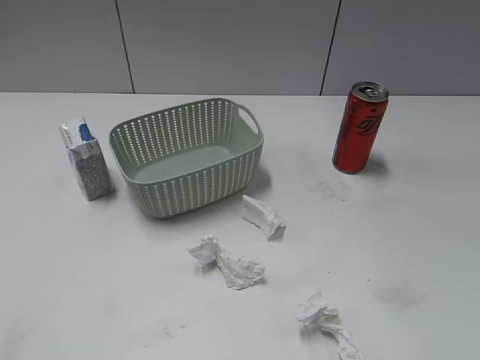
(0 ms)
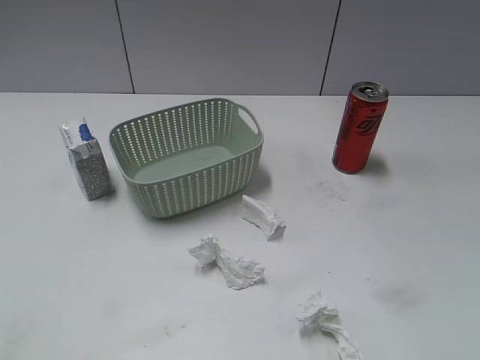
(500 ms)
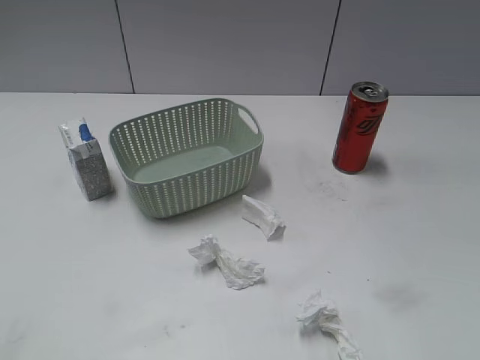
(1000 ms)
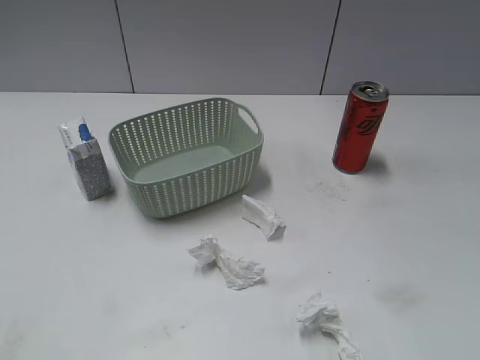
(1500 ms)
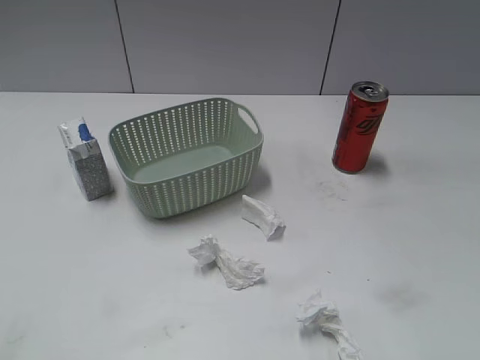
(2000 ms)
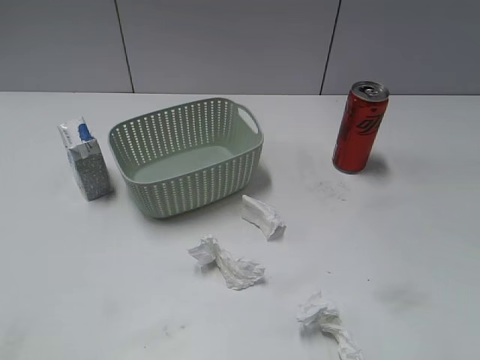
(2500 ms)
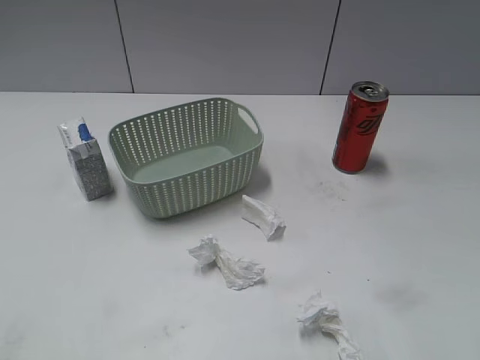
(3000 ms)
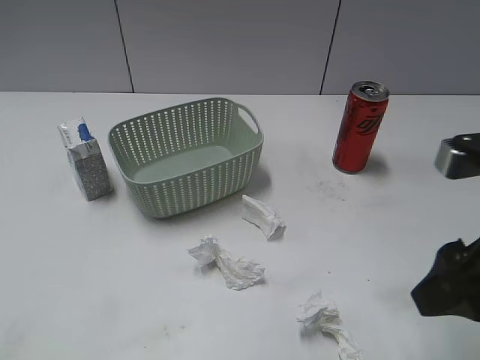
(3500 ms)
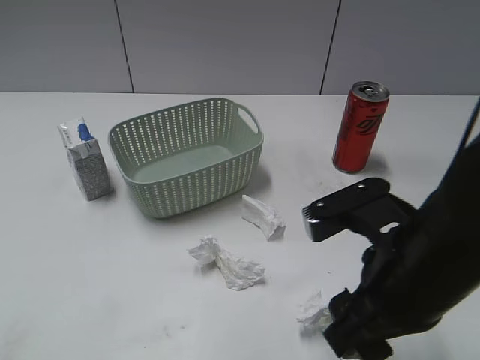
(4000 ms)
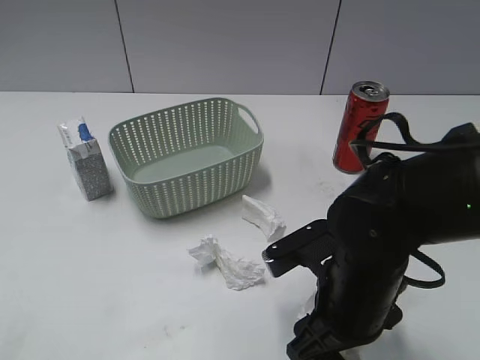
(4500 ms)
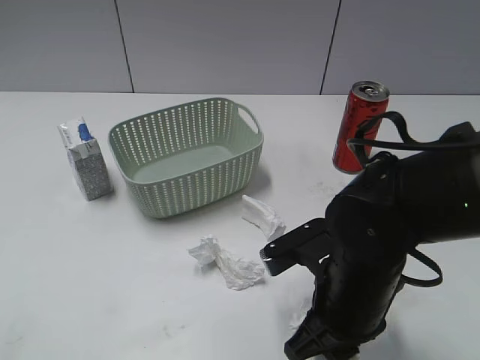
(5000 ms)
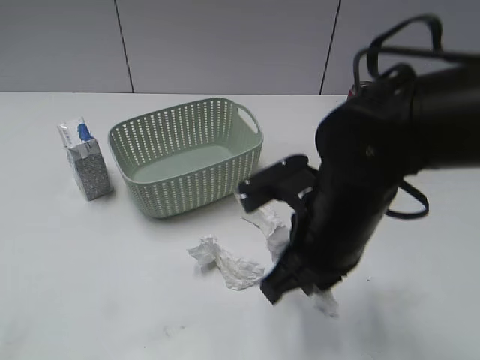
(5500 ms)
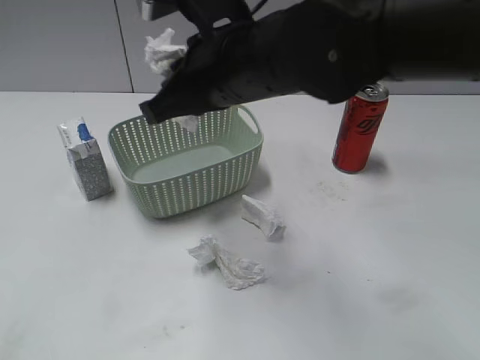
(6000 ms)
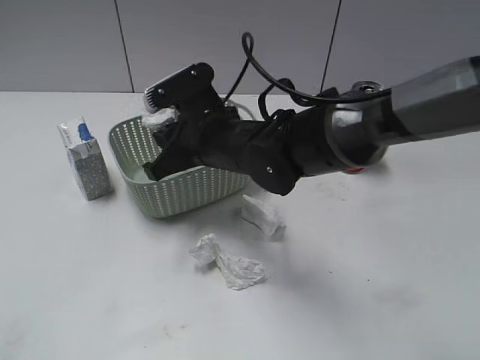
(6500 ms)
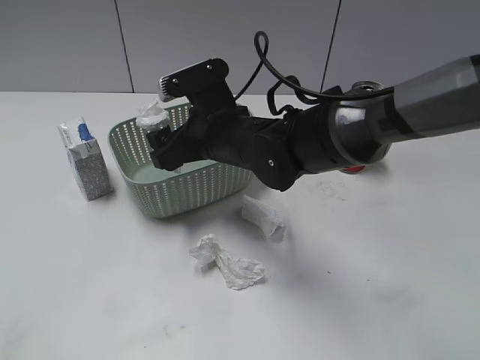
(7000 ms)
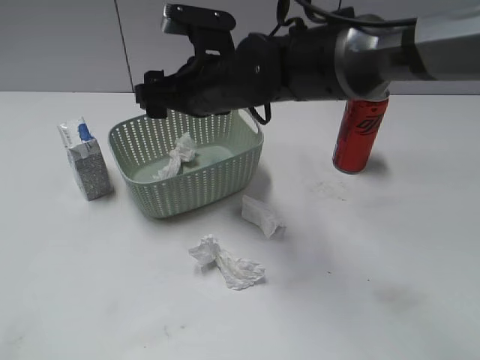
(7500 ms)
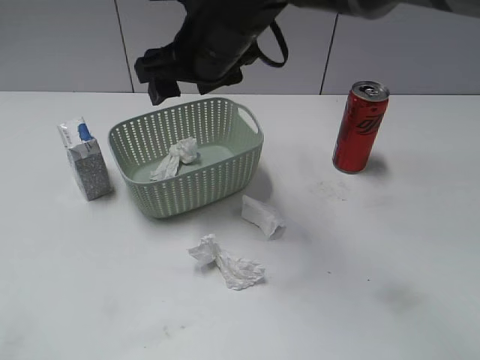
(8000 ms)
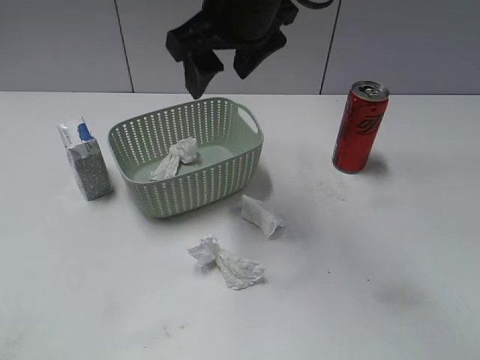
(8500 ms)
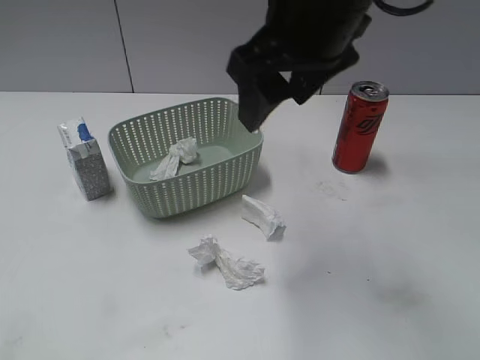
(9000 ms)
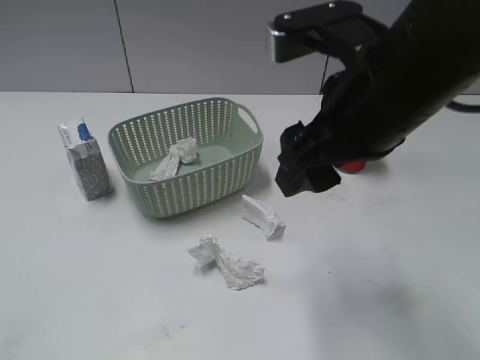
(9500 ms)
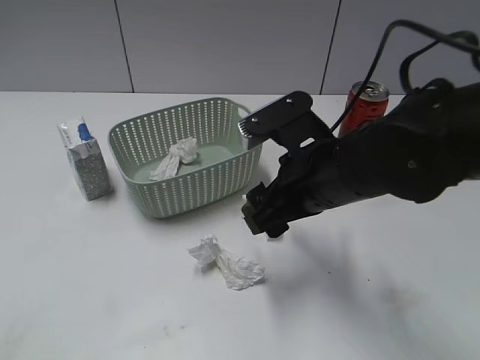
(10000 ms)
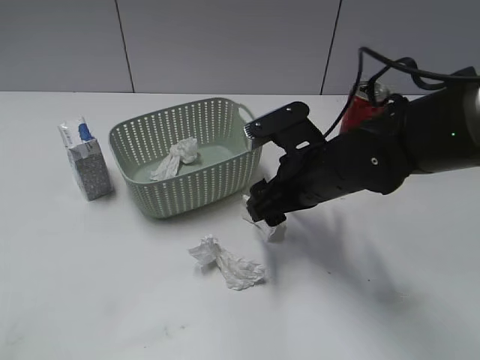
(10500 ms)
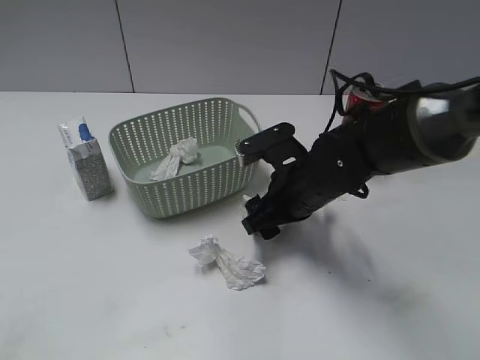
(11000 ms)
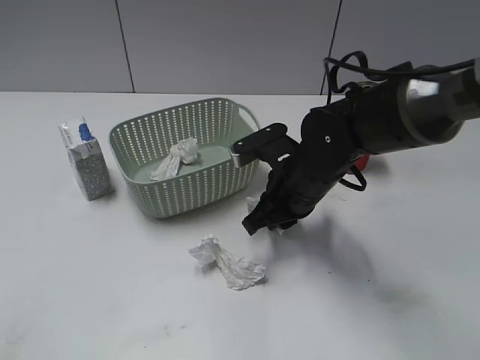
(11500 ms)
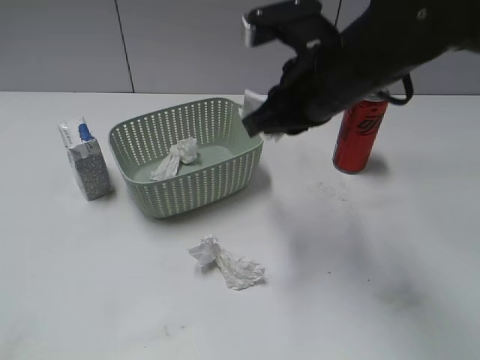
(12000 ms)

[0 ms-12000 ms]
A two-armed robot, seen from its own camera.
Step, 3500 ms to 5000 ms: Grasp the waste paper with right gripper.
Step, 5500 ms to 7500 ms: Place the waste paper in the basket with right gripper.
Step, 8000 ms to 11500 ms: Grasp the waste paper with right gripper.
2000 ms to 4000 ms: The right gripper heads to the left, forward and downward, covering some 20 cm.
4000 ms to 6000 ms: The right gripper moves to the left, forward and upward, approximately 20 cm, and closes up.
6000 ms to 8000 ms: The right gripper is displaced forward by about 10 cm, travels downward and back again, approximately 10 cm each way, and opens.
8000 ms to 10000 ms: The right gripper moves to the right, backward and downward, about 20 cm.
10000 ms to 12000 ms: The right gripper goes approximately 5 cm upward, and closes.

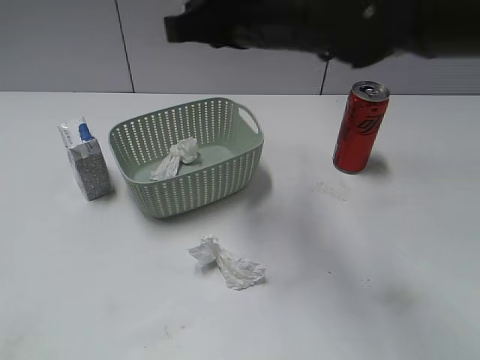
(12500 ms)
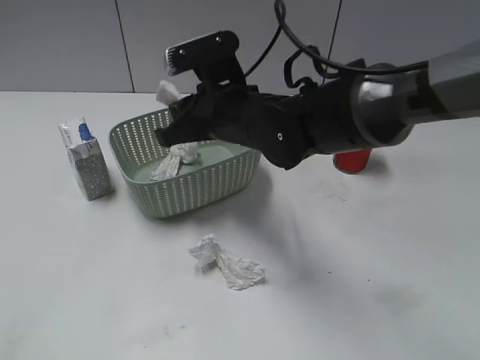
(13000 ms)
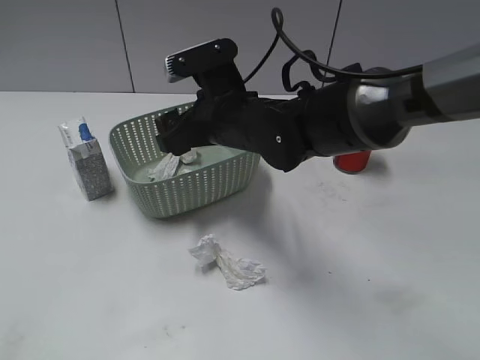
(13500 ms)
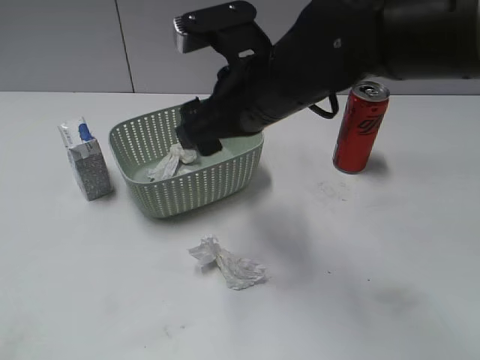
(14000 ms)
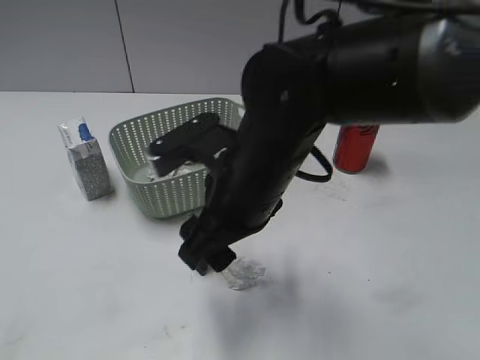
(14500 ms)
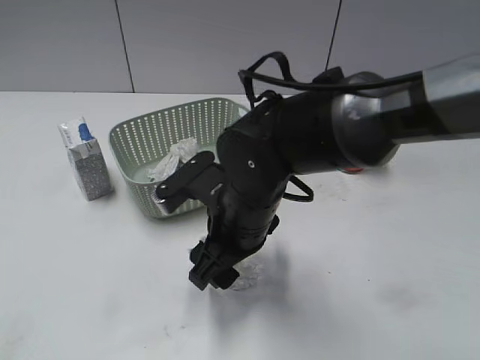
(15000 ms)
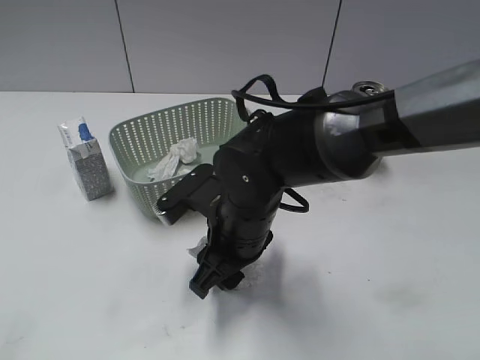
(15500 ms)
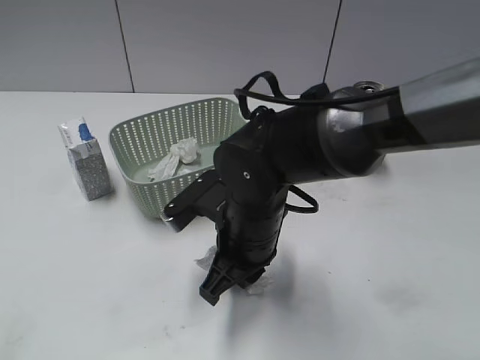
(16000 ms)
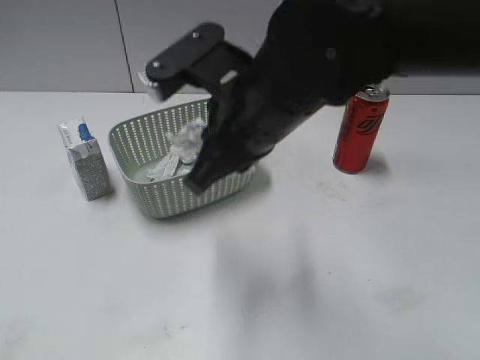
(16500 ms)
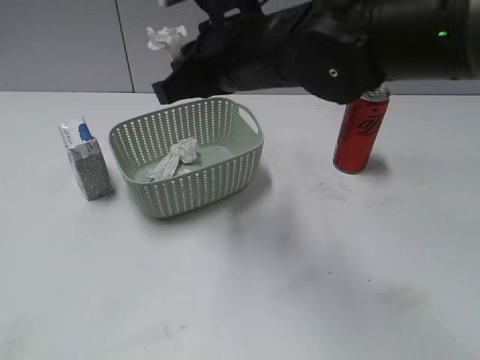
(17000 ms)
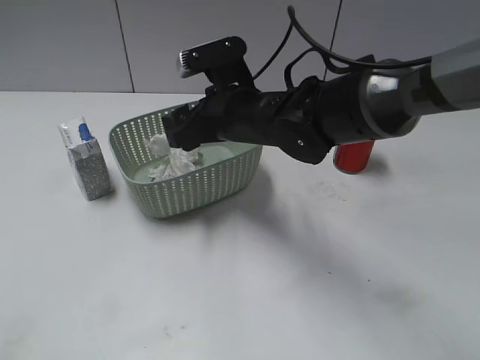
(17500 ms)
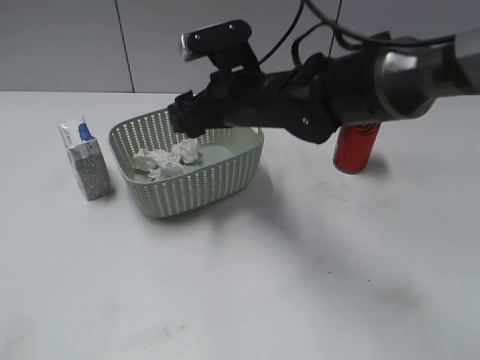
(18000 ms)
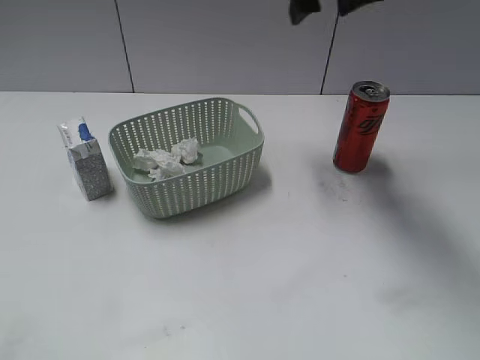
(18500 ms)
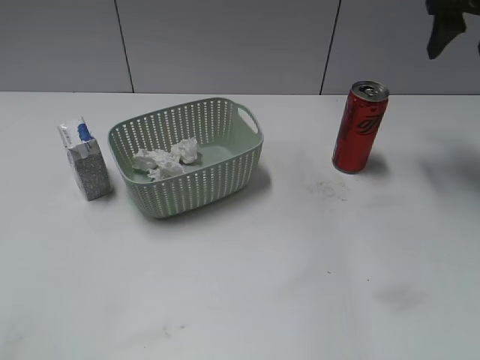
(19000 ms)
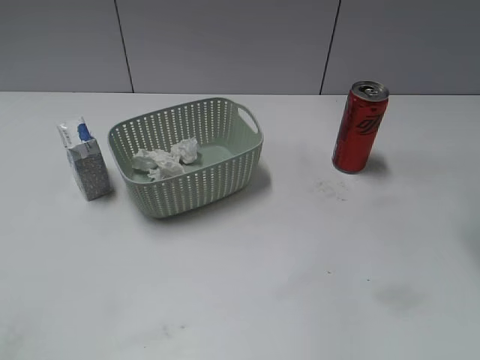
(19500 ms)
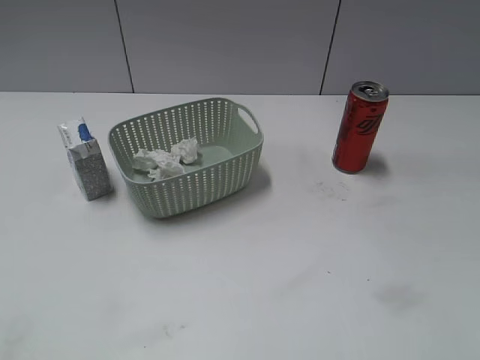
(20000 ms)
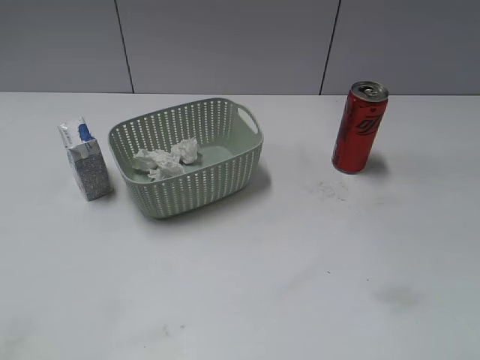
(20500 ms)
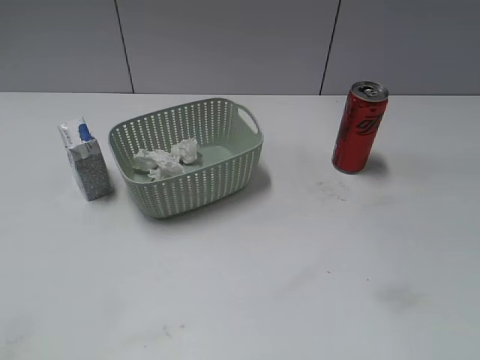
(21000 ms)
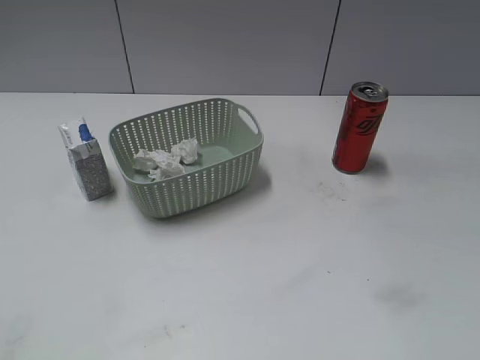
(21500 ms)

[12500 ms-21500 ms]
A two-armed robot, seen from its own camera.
Step, 12500 ms to 13500 ms: Place the waste paper in the basket with right gripper.
Step, 14000 ms to 16000 ms: Grasp the waste paper with right gripper.
Step, 16500 ms to 17500 ms: Place the waste paper in the basket with right gripper.
12500 ms to 14500 ms: The right gripper moves up and down over some 15 cm, changing direction 2 times, and opens its fingers.
14500 ms to 17000 ms: The right gripper heads forward and upward, covering roughly 10 cm, and closes.
17000 ms to 19500 ms: The right gripper travels to the right by some 25 cm, and opens its fingers.

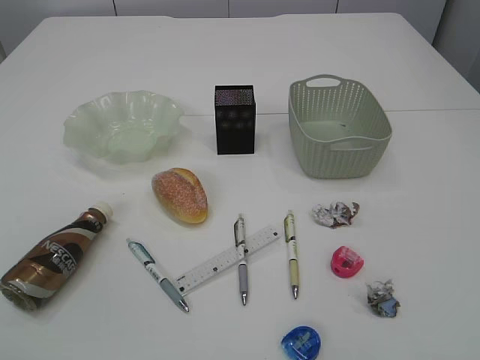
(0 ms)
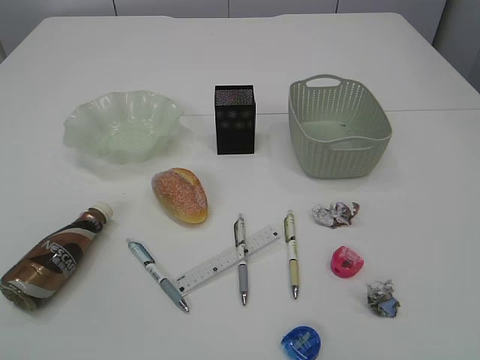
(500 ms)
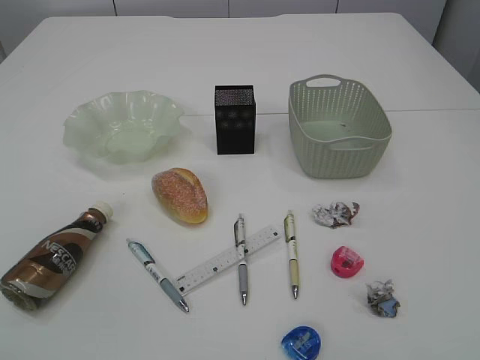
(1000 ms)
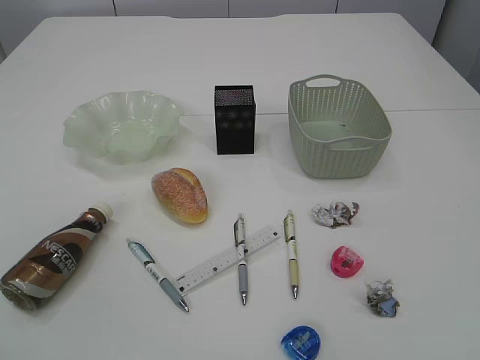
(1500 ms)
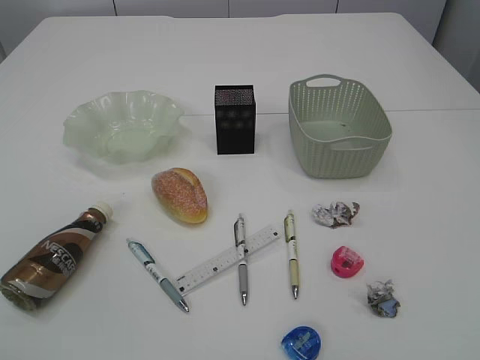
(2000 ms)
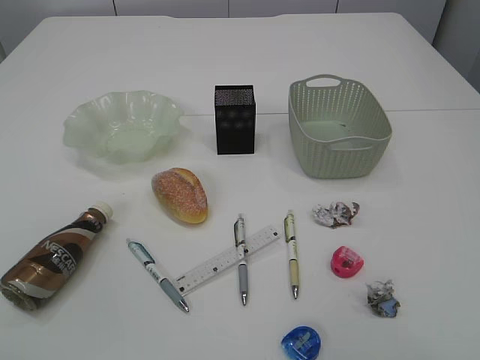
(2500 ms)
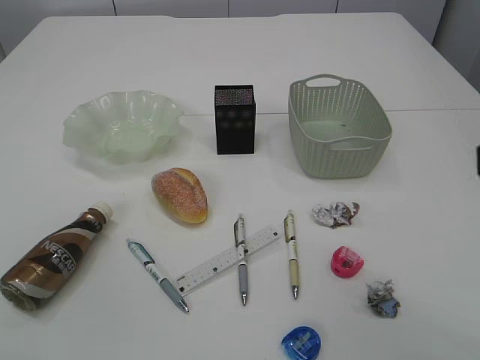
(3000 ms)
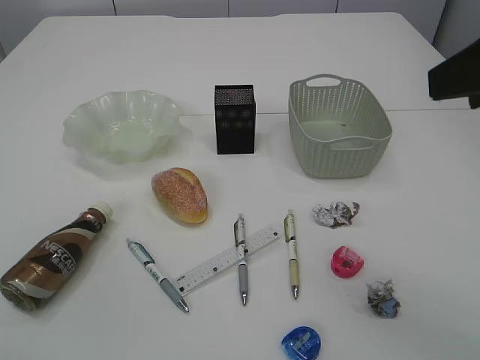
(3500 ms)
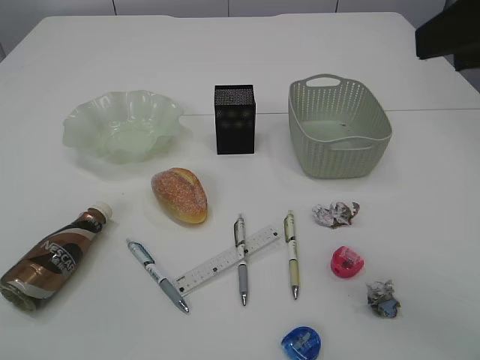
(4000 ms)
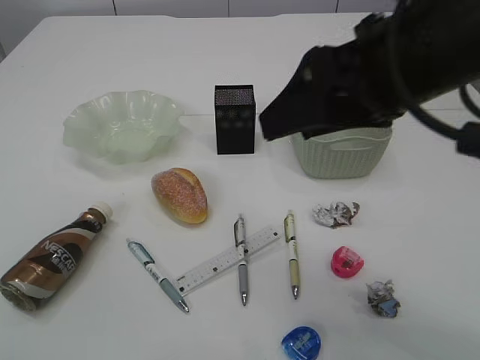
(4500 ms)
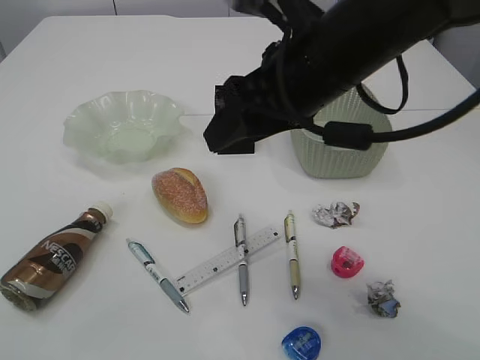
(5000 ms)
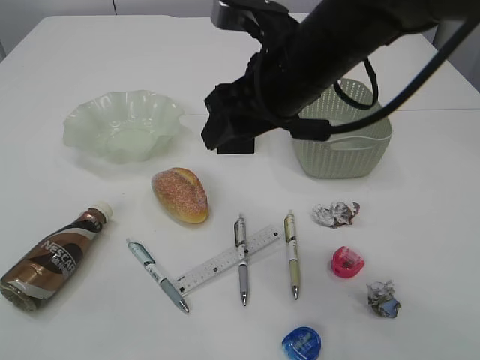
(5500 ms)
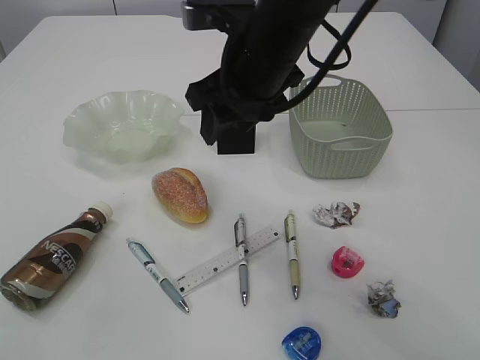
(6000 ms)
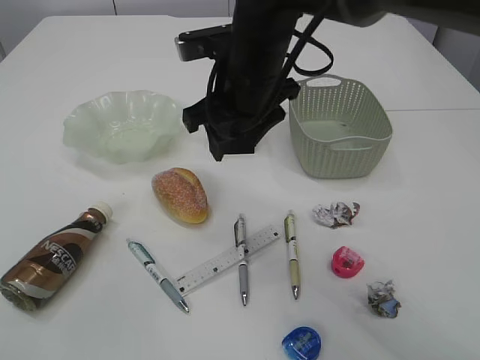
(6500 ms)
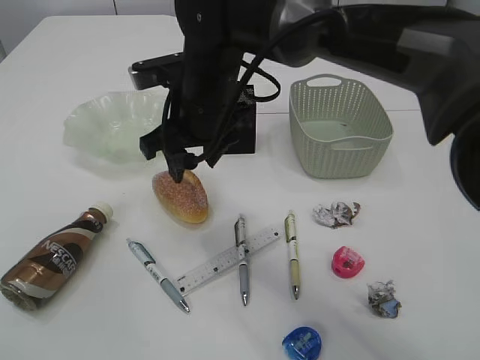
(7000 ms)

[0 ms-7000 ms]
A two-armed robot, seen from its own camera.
2000 ms to 3500 ms: The right gripper moves forward and upward, about 25 cm.
3500 ms to 5000 ms: The right gripper goes about 20 cm to the left, forward and downward.
5000 ms to 7000 ms: The right gripper is displaced to the left, forward and downward by about 15 cm.
